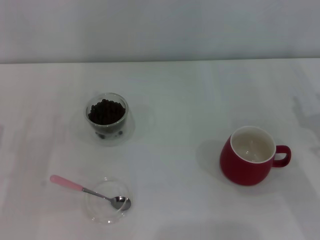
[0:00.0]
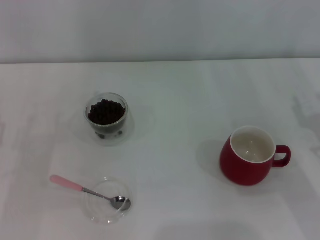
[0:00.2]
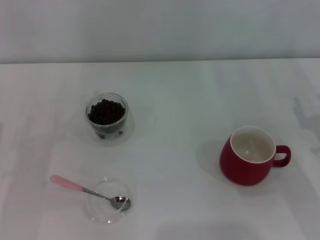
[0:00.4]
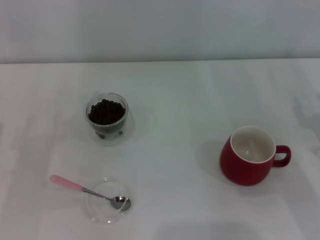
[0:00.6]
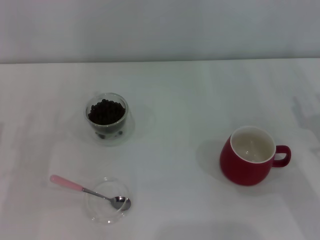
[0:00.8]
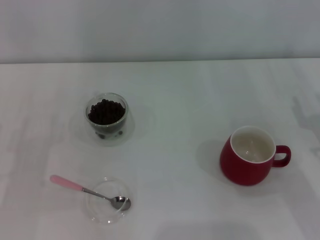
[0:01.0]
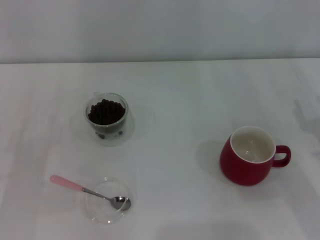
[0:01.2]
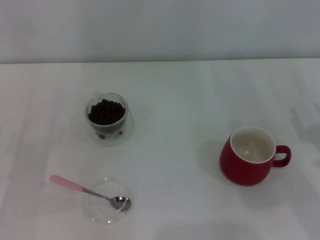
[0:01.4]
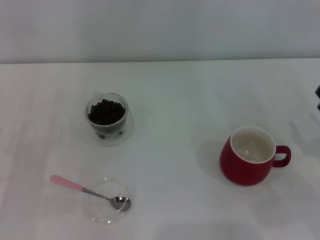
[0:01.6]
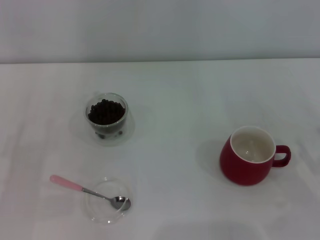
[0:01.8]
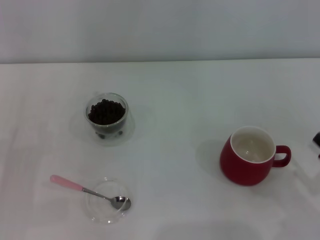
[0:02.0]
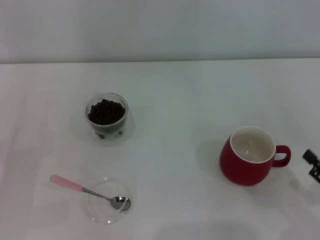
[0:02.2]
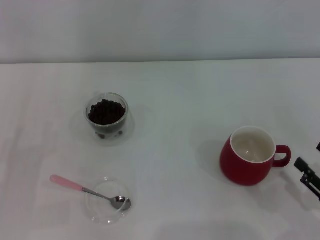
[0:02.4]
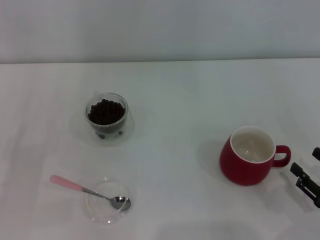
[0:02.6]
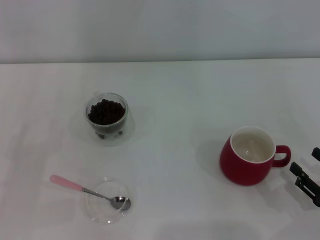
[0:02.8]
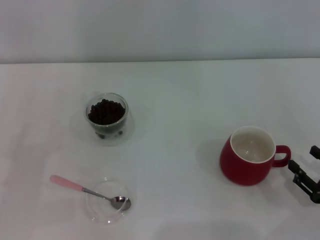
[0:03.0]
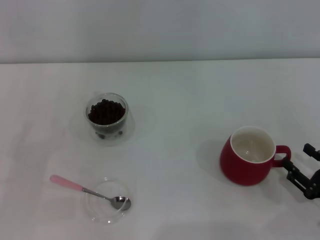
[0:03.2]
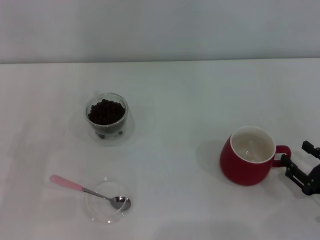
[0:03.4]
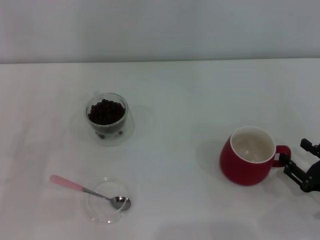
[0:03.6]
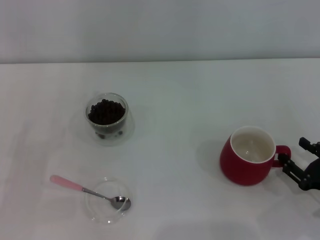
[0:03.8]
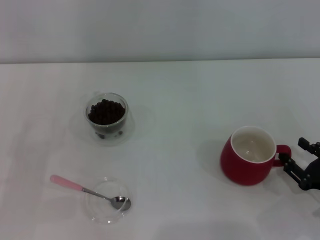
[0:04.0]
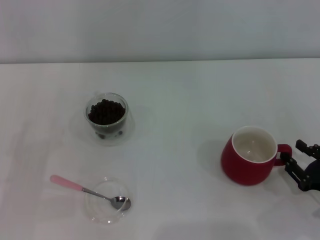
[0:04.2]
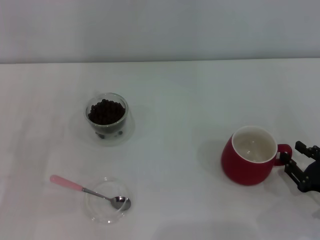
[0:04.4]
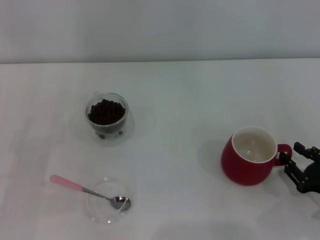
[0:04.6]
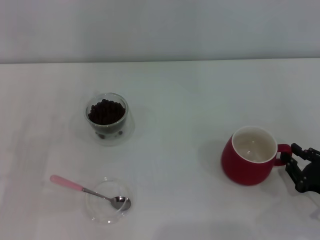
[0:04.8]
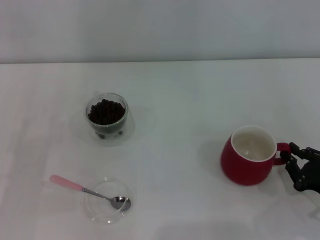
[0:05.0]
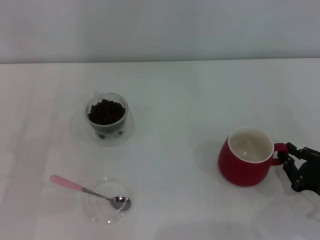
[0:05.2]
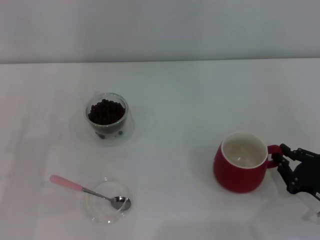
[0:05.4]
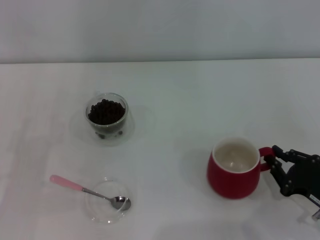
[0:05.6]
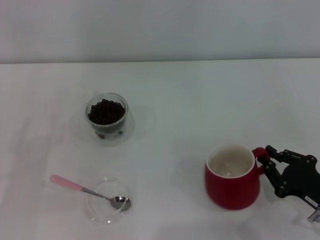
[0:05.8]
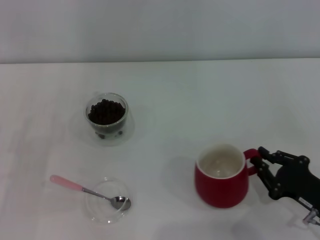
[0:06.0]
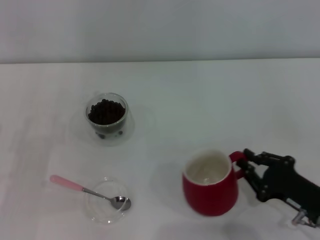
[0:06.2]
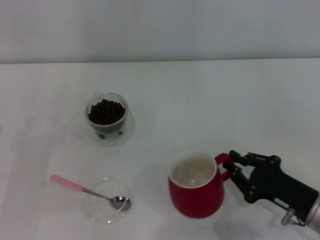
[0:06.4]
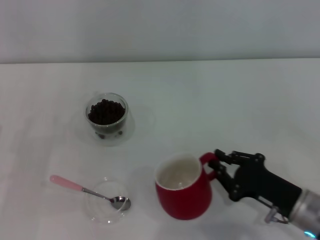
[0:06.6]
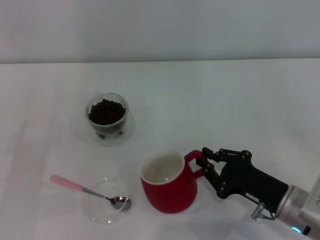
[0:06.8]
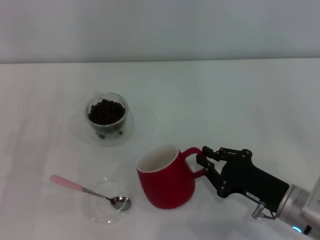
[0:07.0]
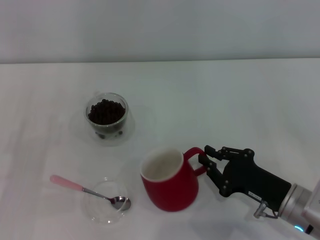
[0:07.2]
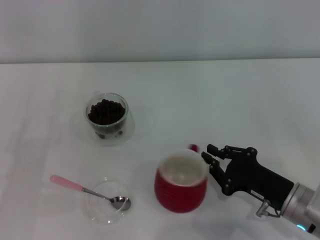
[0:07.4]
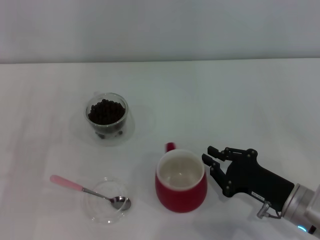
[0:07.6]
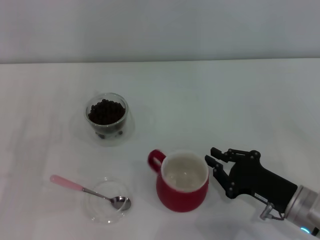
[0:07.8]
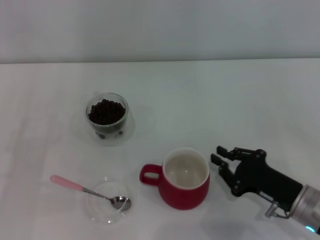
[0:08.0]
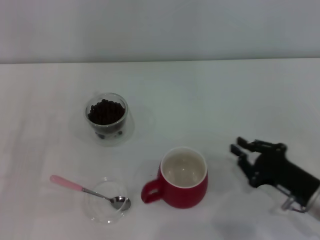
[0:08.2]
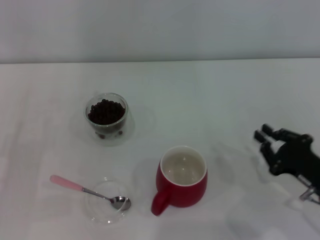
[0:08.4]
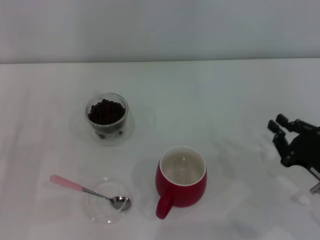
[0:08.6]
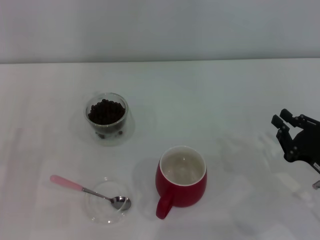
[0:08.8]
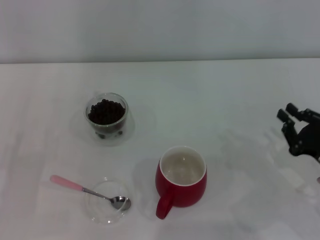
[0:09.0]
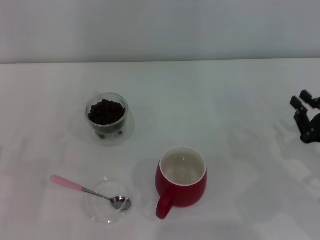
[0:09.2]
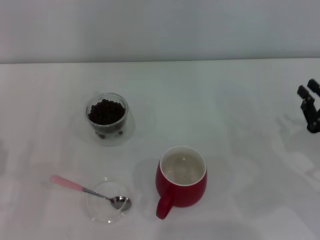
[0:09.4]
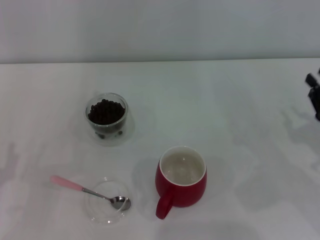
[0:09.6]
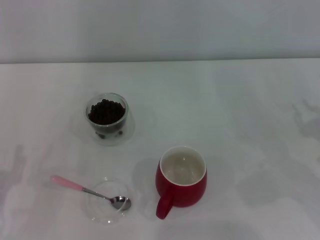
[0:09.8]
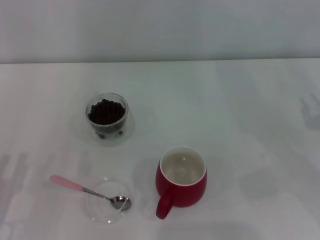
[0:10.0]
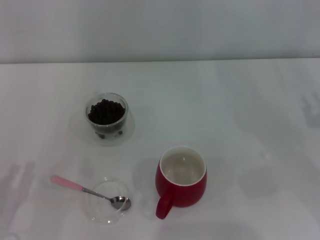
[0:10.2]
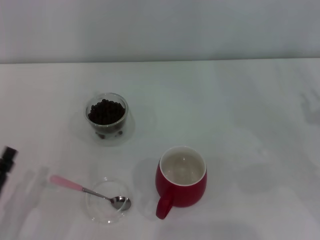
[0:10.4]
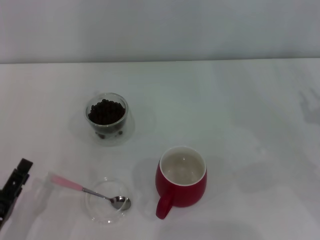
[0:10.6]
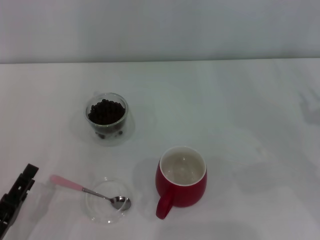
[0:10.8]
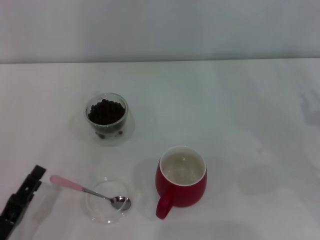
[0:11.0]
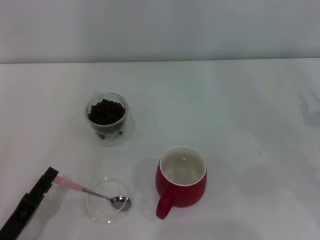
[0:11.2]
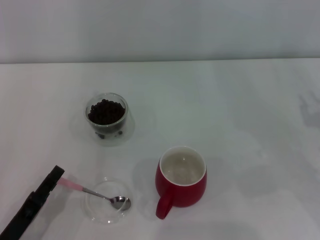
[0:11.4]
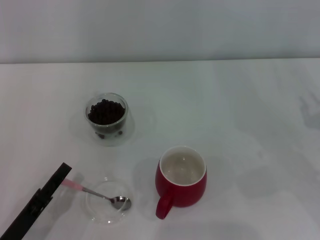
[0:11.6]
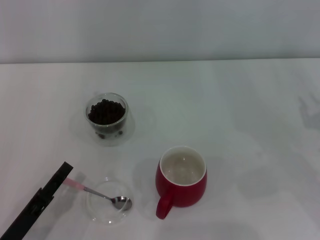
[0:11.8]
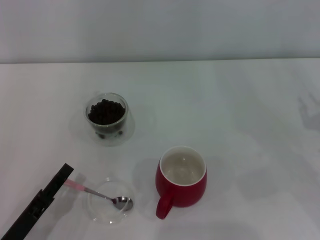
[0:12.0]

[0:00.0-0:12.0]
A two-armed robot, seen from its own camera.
Task of the whole recording: Use a pink spoon to take out the coffee beans from the glass and pour them into the red cup.
Step, 0:00.0 to 0:08.0: Move the cup to the center of view with the left gripper.
0:01.6 to 0:03.0: The right gripper goes some 5 cm backward.
0:03.0 to 0:04.4: There are only small adjustments of the grippers.
0:04.4 to 0:06.0: The right gripper closes.
0:06.0 to 0:07.6: The right gripper moves to the left, roughly 5 cm.
0:07.6 to 0:09.0: The right gripper is displaced to the right by approximately 10 cm.
0:09.0 to 0:10.4: The right gripper travels to the right and upward by approximately 5 cm. Meanwhile the left gripper goes roughly 10 cm backward and to the right.
0:10.4 to 0:12.0: There are only small adjustments of the grippers.

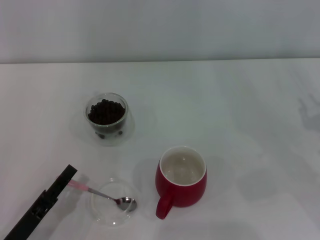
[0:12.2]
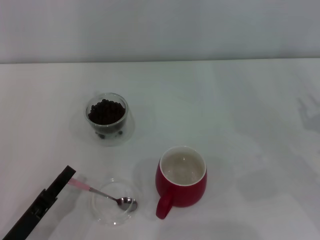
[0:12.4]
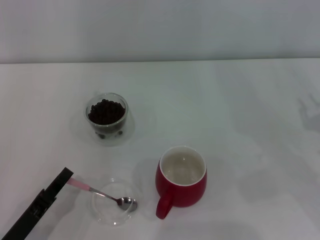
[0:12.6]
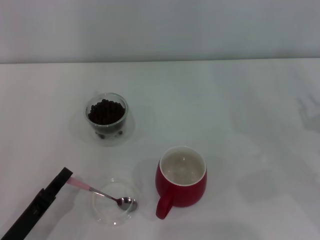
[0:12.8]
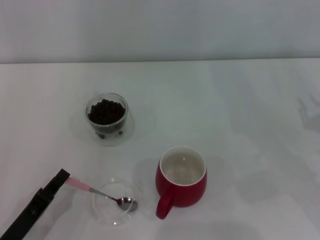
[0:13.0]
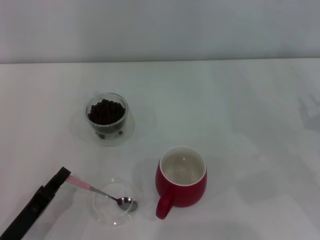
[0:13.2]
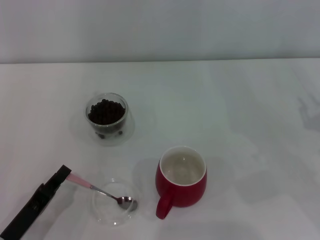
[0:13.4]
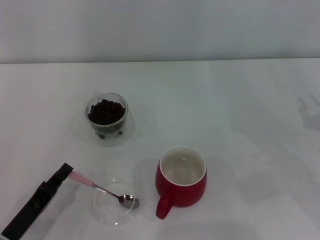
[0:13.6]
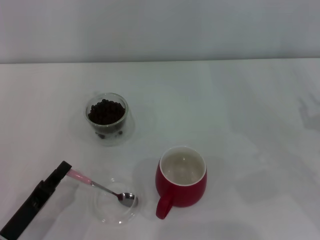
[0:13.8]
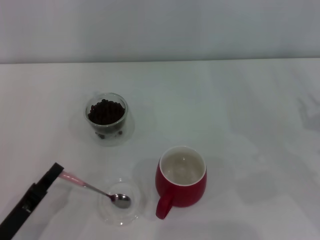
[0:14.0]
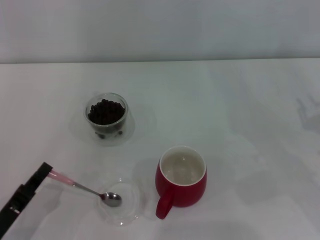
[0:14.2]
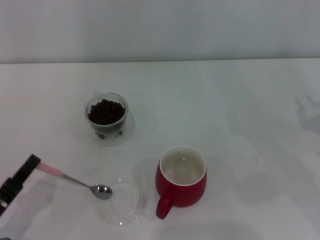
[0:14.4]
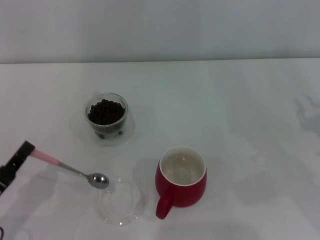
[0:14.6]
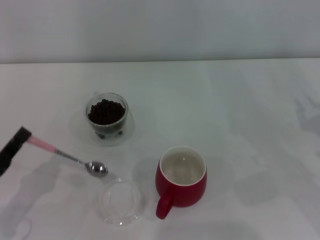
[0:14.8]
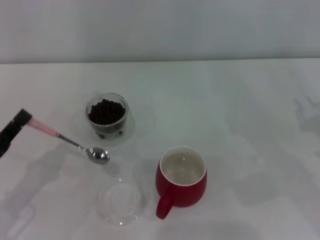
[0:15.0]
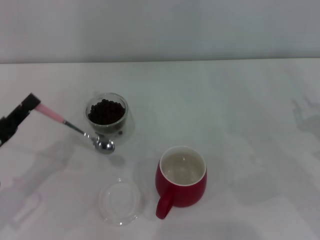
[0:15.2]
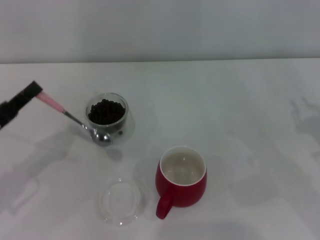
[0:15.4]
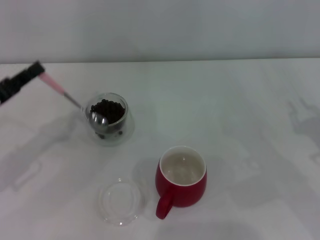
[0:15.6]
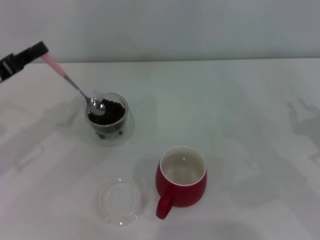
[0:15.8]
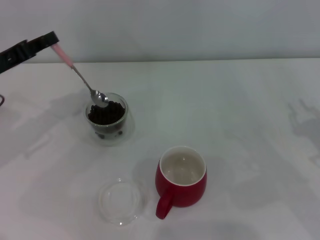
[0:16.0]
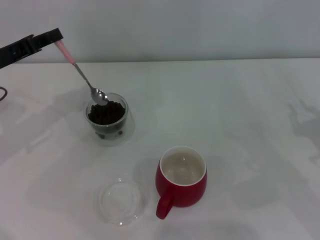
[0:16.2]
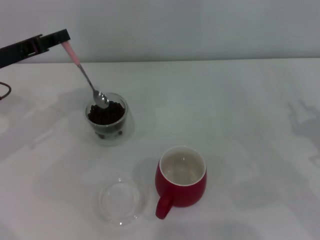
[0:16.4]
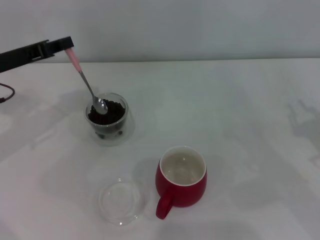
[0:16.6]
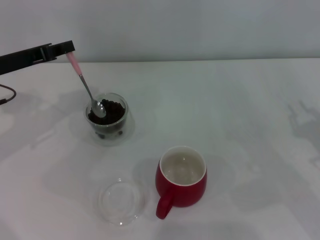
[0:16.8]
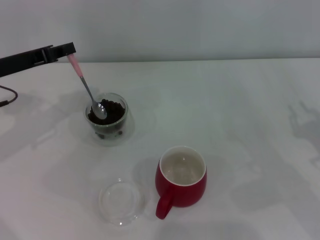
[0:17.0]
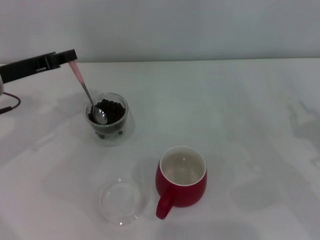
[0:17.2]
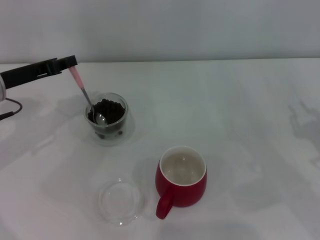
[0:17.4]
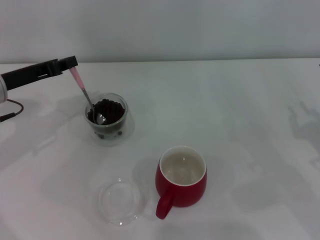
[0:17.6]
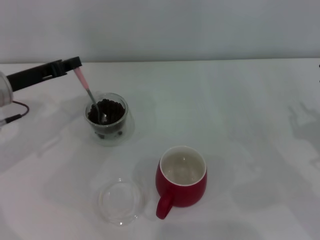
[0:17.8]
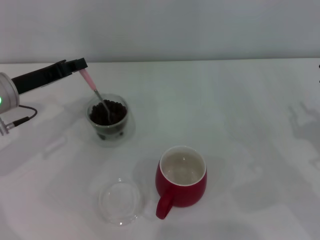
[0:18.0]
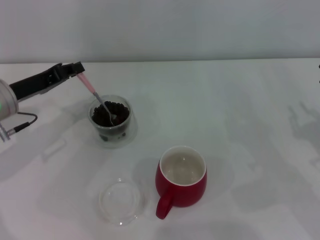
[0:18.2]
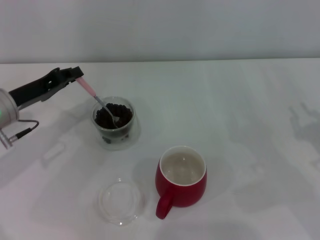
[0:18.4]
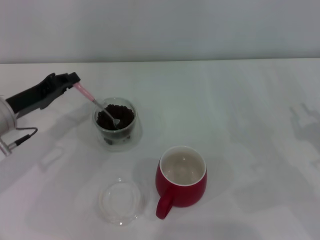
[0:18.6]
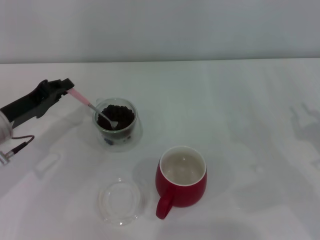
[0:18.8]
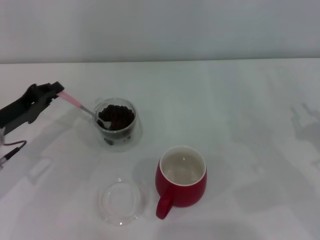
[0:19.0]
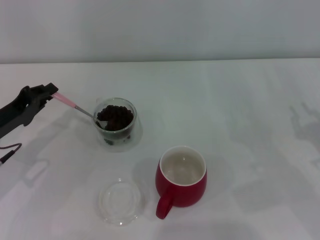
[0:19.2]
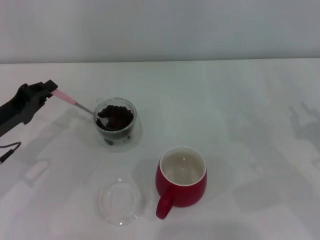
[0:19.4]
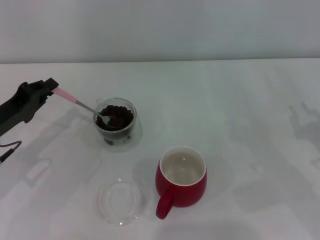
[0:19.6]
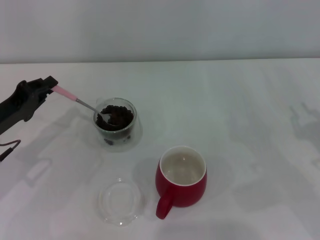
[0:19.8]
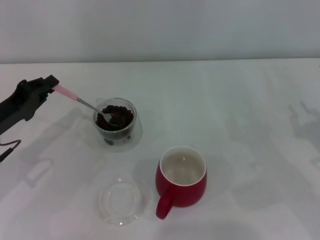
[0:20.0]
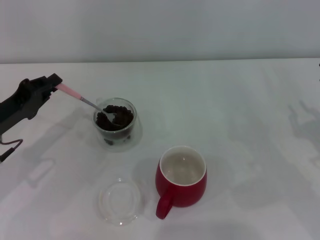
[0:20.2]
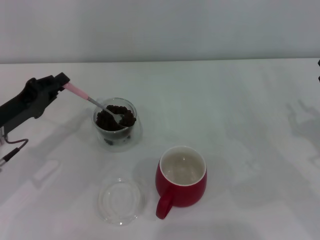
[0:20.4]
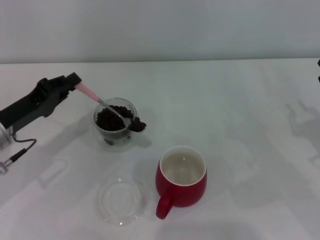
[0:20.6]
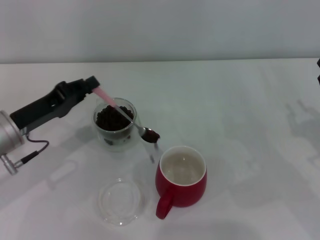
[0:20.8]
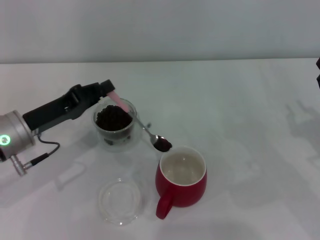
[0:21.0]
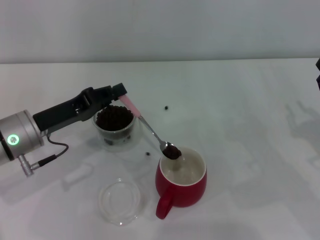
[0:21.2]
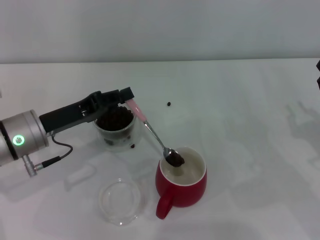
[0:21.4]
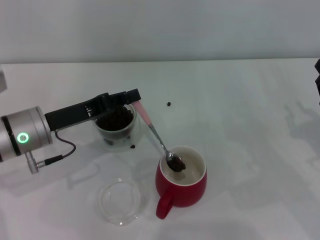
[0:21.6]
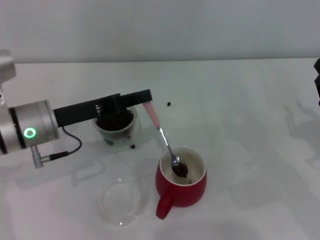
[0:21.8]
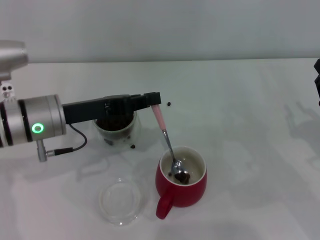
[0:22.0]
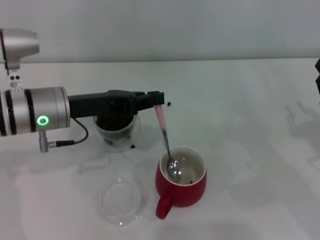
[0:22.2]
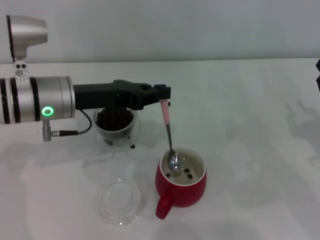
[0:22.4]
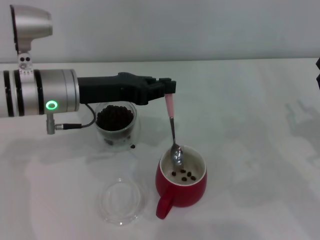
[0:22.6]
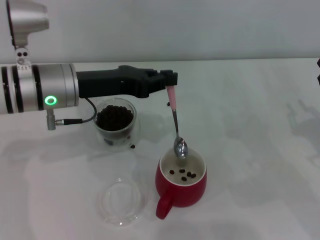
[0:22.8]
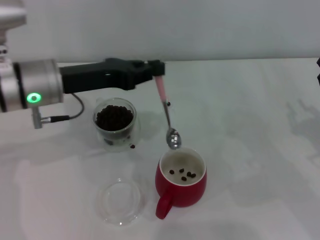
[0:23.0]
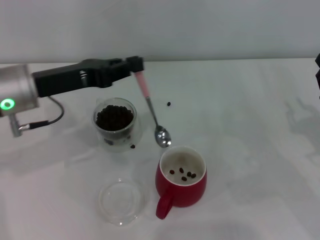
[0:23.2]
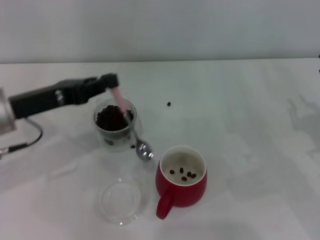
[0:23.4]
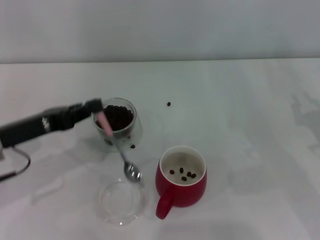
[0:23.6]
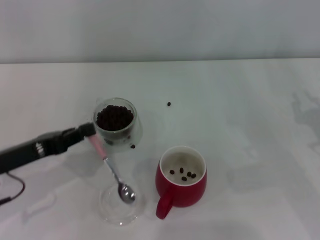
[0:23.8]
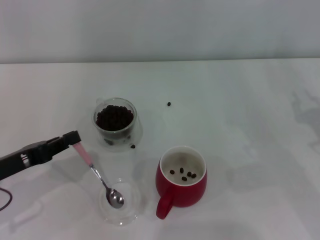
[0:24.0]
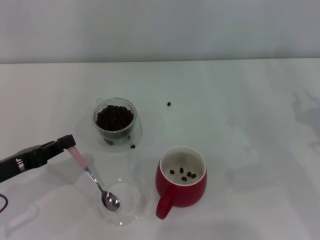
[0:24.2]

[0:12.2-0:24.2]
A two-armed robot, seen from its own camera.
Task of the whole recording: Use a pink spoon to take out the coffee beans from the glass and pour them into the red cup.
0:12.2 to 0:13.8: The left gripper closes up.
0:13.8 to 0:15.2: The left gripper shifts about 10 cm upward and forward.
0:15.2 to 0:16.6: The left gripper is displaced forward and upward by about 15 cm.
0:16.6 to 0:18.2: The left gripper changes place by about 5 cm.
0:18.2 to 0:19.8: The left gripper moves some 5 cm.
0:19.8 to 0:21.2: The left gripper travels to the right by about 5 cm.
0:21.2 to 0:22.6: The left gripper is displaced upward and to the right by roughly 10 cm.
0:22.6 to 0:24.2: The left gripper travels to the left, backward and downward by some 20 cm.
